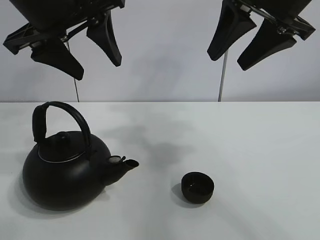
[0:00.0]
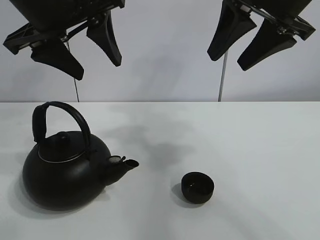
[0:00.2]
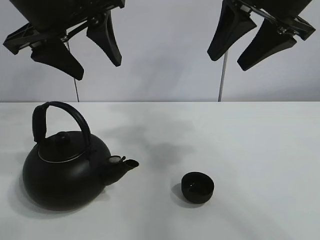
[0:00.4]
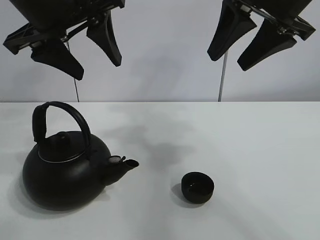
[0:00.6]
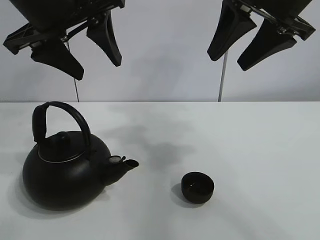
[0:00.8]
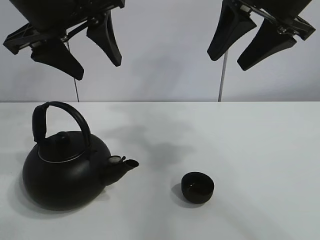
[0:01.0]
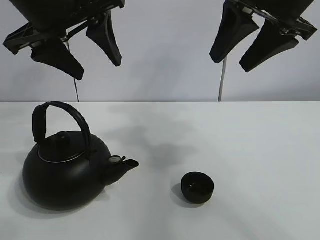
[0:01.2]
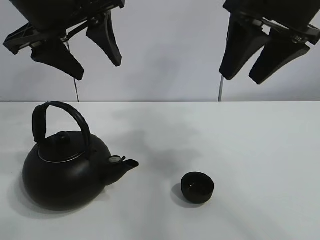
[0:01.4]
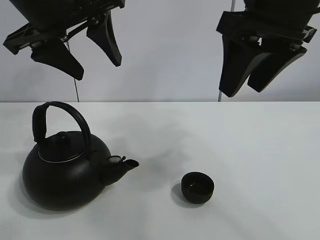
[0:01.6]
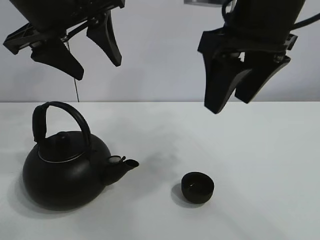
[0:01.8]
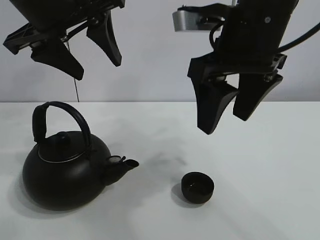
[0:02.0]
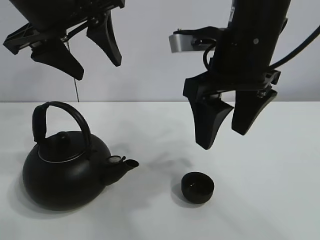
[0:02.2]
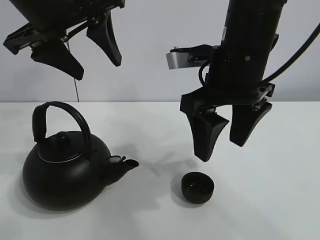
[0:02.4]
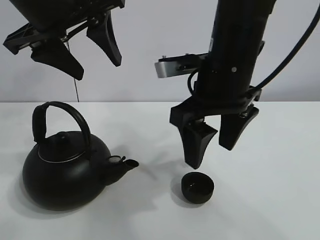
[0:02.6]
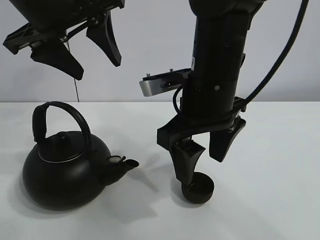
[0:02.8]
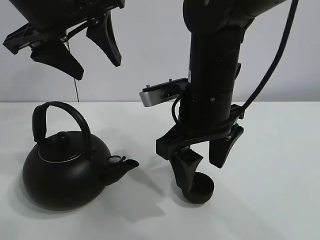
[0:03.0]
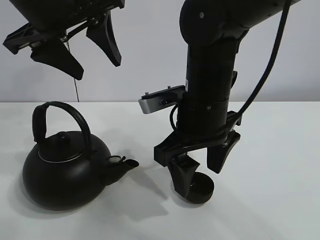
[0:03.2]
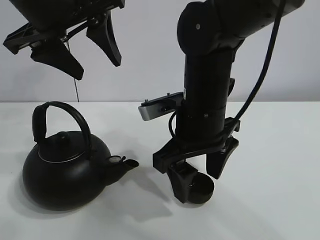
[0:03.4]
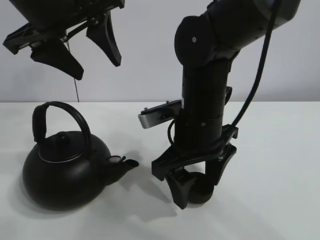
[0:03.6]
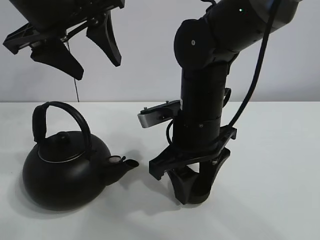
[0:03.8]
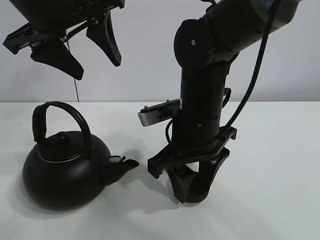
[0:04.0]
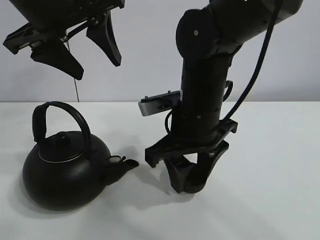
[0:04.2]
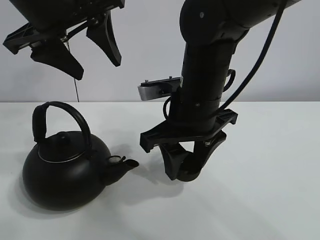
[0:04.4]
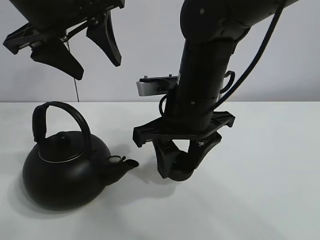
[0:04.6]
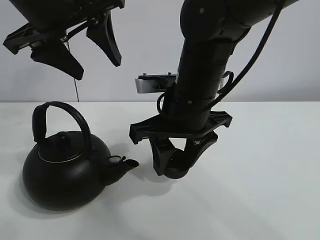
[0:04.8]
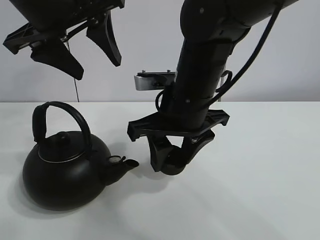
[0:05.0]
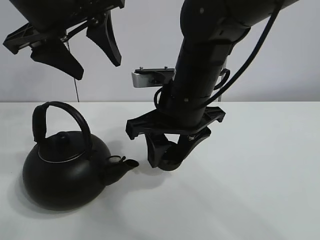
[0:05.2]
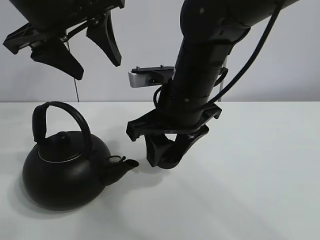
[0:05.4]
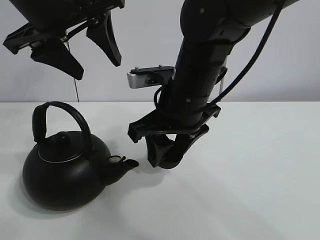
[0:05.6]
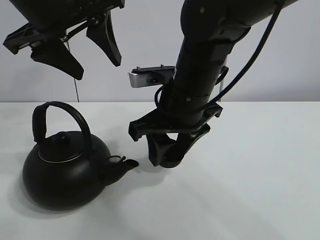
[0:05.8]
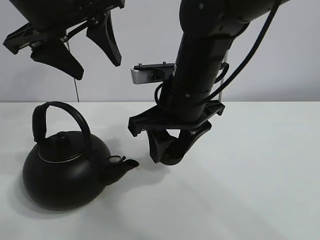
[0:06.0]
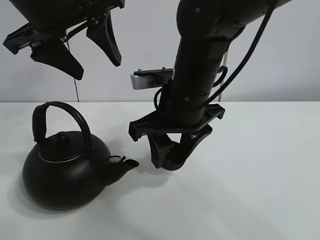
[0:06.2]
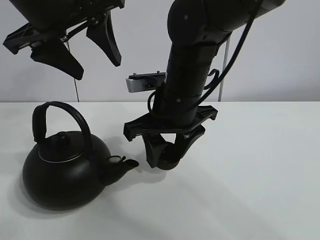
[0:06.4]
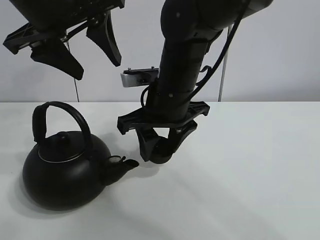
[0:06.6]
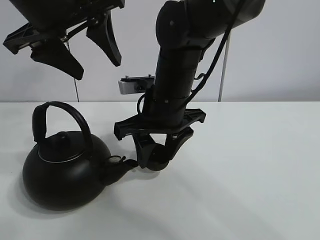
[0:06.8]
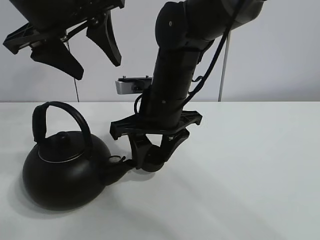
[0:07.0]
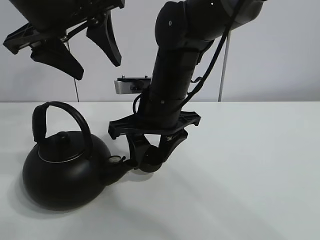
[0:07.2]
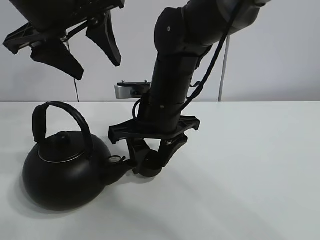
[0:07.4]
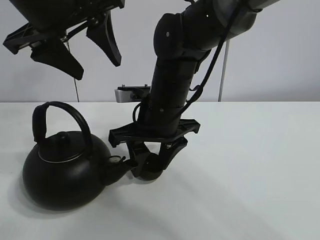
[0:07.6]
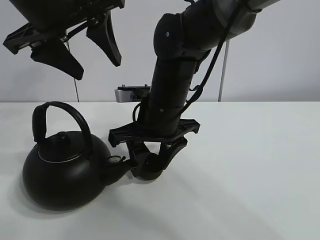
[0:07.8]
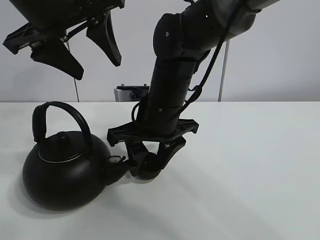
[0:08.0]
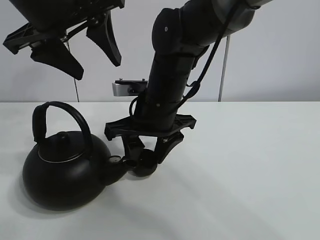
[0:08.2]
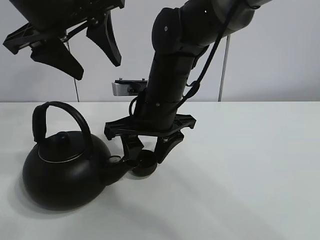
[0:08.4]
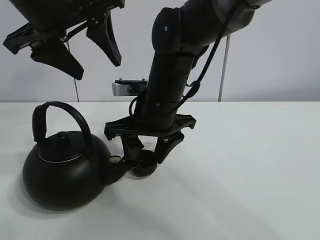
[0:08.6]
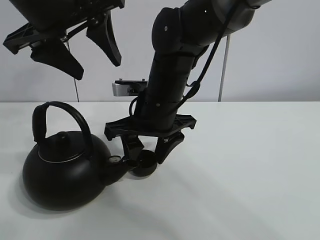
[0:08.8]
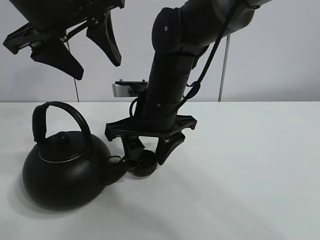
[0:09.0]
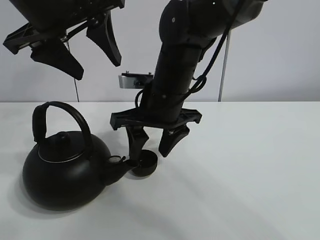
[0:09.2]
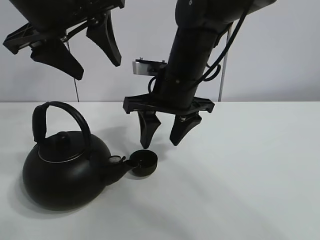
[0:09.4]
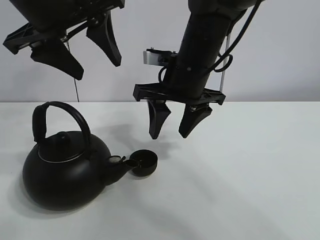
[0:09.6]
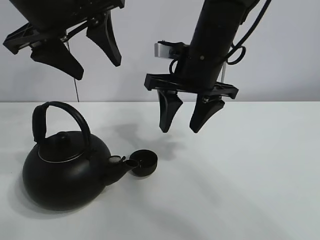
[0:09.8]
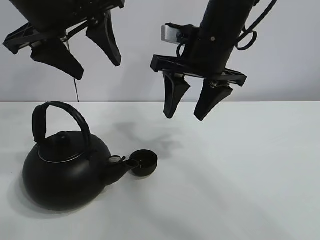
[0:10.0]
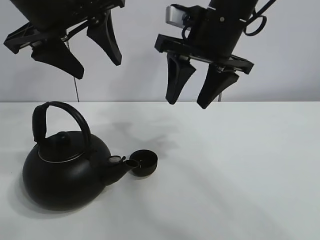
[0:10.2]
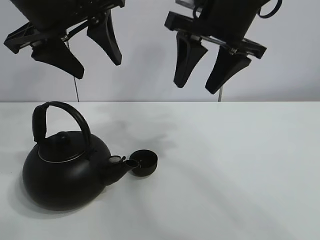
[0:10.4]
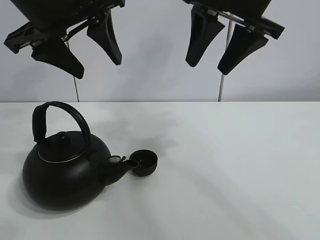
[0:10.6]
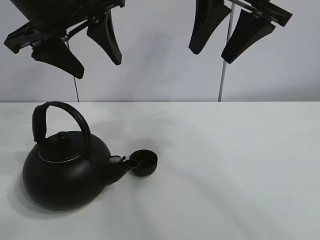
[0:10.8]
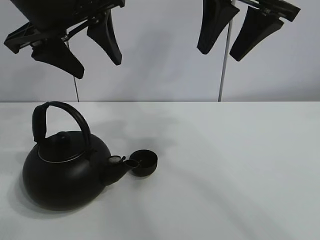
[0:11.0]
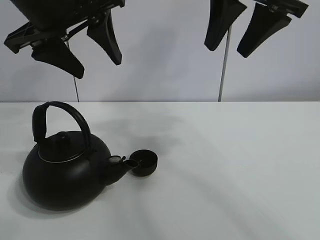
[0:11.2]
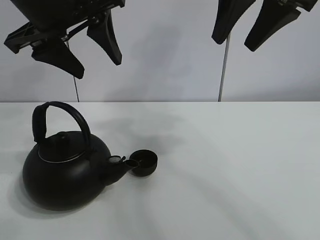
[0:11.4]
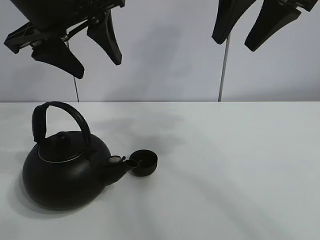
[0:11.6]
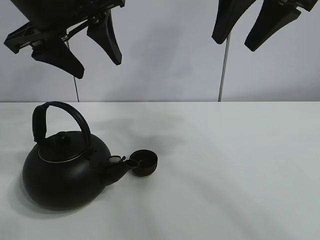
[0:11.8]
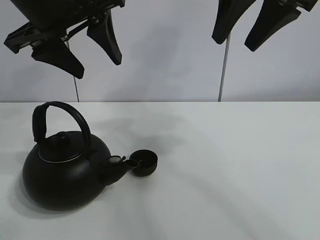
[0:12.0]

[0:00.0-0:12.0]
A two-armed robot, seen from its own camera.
Task of the whole recording: pour tea into the teacup.
Step, 0:00.0 to 0:04.0: Pick up the teacup with the right gripper.
Step, 0:04.2 to 0:09.2: Place the teacup in the center of view with the right gripper.
0:01.6 to 0:03.0: The right gripper shifts roughly 15 cm downward and to the left, and opens up.
0:03.0 to 0:04.4: The right gripper closes up.
0:04.4 to 0:06.0: The grippers stay close to where they were, moving slightly.
0:06.0 to 0:07.6: The right gripper ends up roughly 5 cm from where it was.
0:07.6 to 0:09.0: The two grippers keep their place.
0:09.0 to 0:10.4: The right gripper shifts roughly 15 cm upward and to the right.
0:10.4 to 0:12.0: The right gripper goes about 5 cm upward.

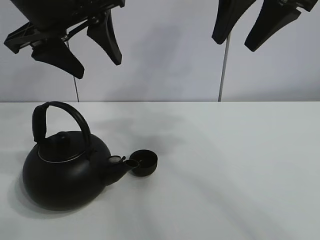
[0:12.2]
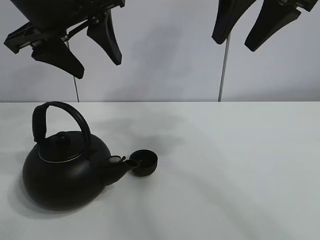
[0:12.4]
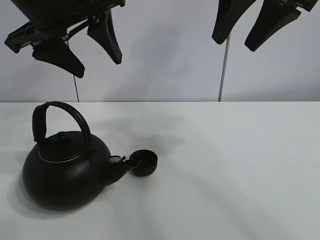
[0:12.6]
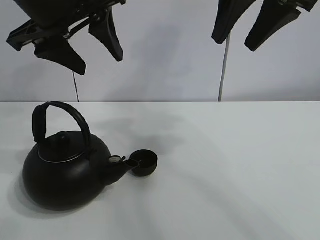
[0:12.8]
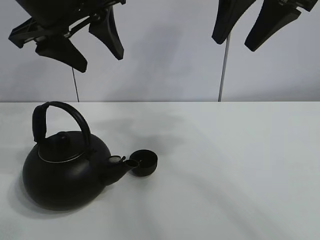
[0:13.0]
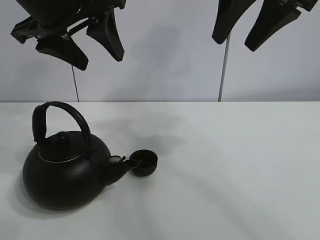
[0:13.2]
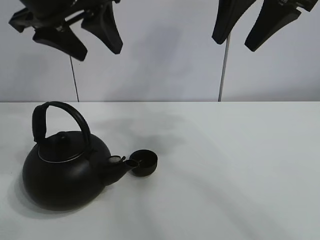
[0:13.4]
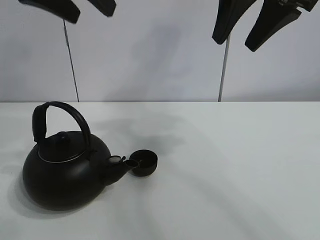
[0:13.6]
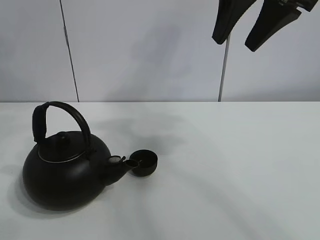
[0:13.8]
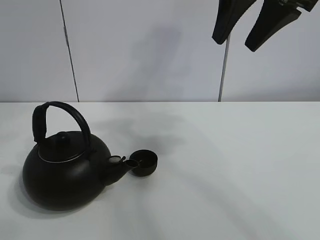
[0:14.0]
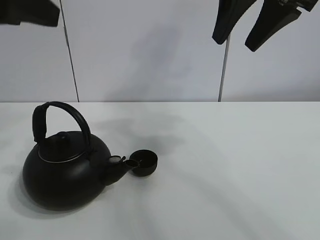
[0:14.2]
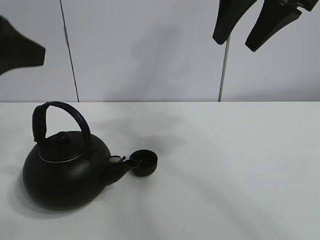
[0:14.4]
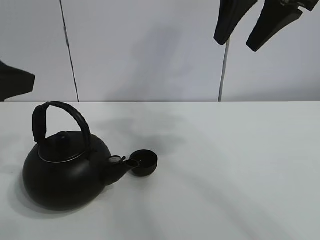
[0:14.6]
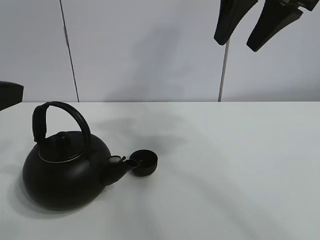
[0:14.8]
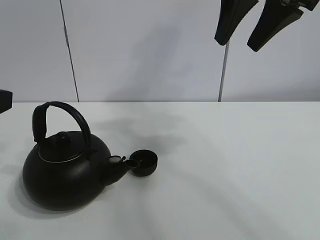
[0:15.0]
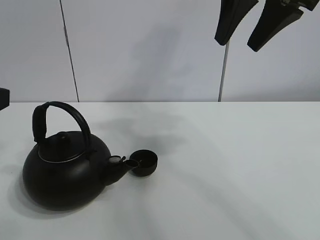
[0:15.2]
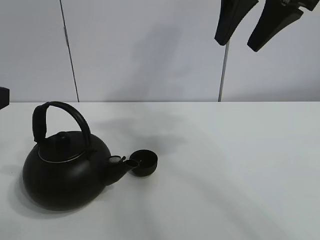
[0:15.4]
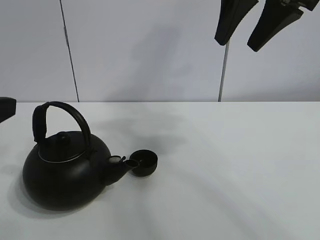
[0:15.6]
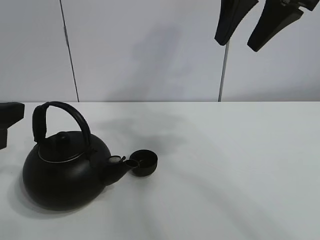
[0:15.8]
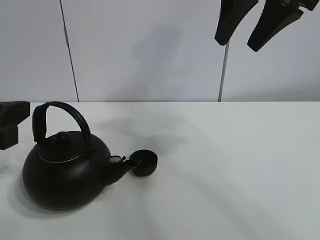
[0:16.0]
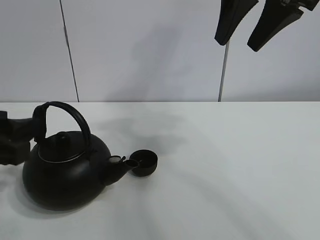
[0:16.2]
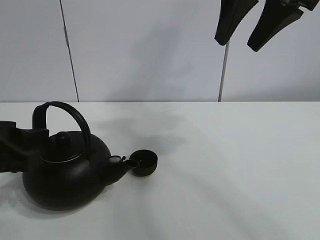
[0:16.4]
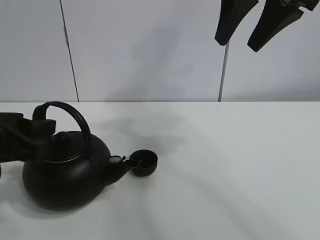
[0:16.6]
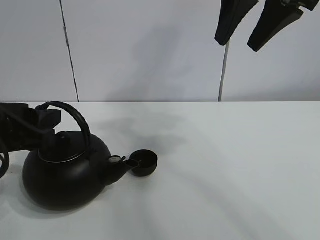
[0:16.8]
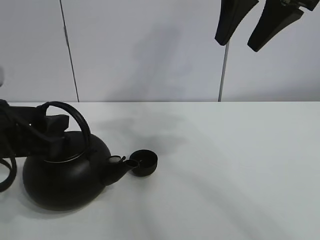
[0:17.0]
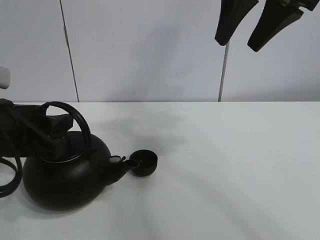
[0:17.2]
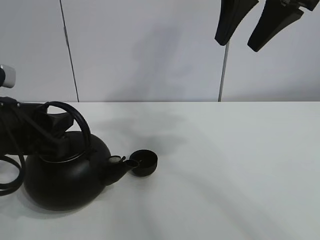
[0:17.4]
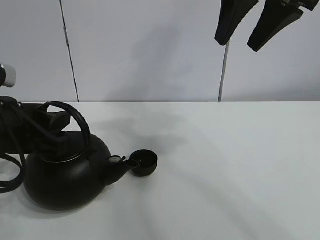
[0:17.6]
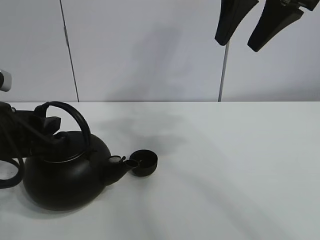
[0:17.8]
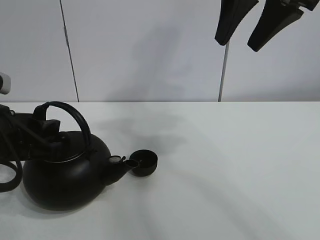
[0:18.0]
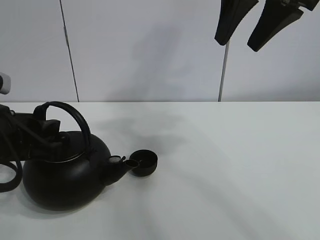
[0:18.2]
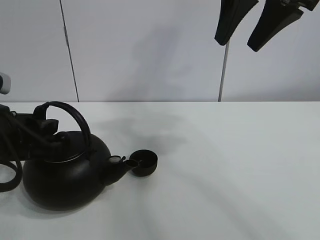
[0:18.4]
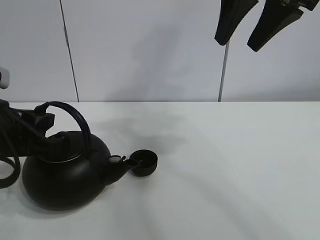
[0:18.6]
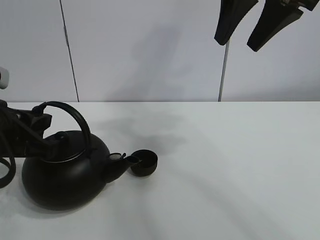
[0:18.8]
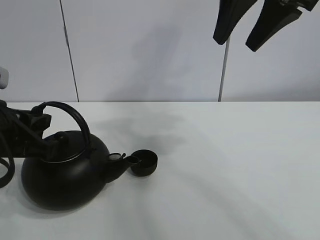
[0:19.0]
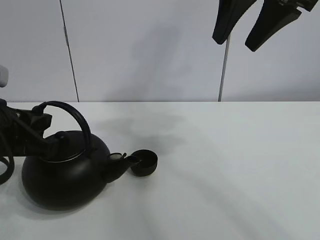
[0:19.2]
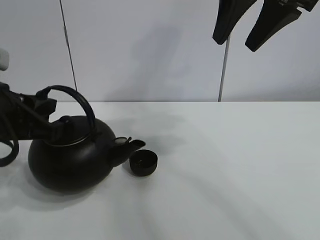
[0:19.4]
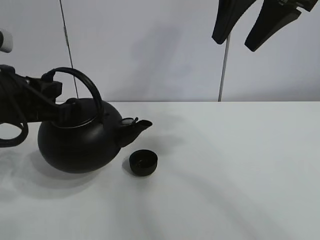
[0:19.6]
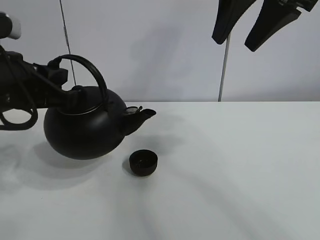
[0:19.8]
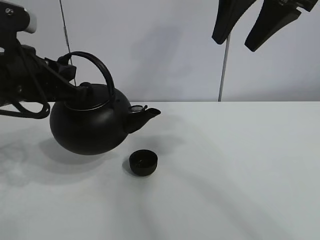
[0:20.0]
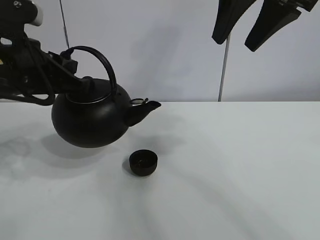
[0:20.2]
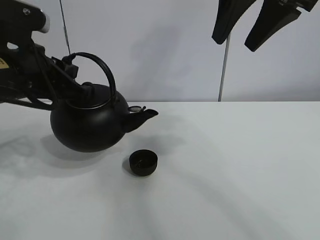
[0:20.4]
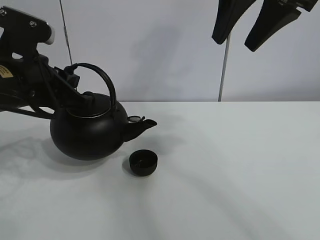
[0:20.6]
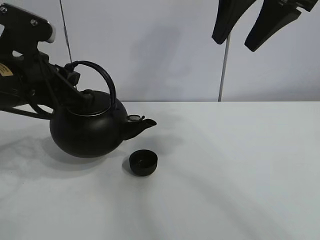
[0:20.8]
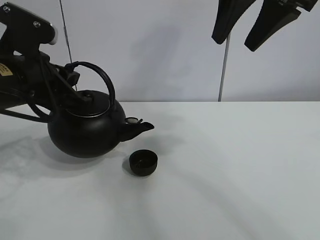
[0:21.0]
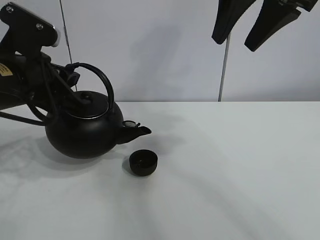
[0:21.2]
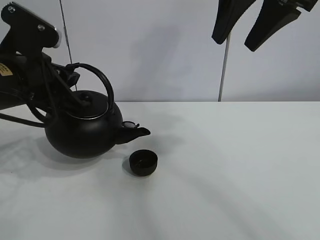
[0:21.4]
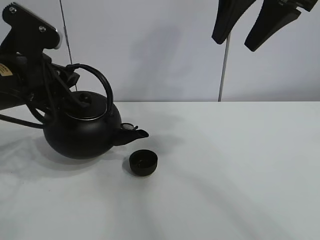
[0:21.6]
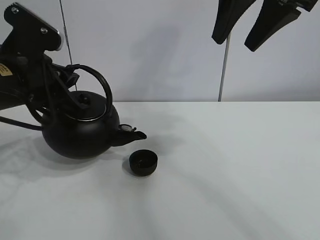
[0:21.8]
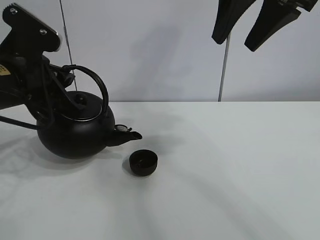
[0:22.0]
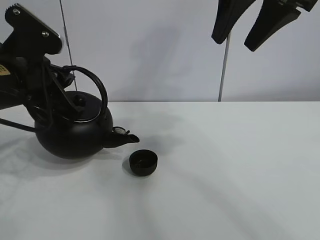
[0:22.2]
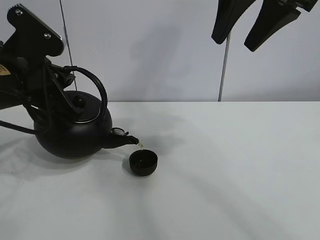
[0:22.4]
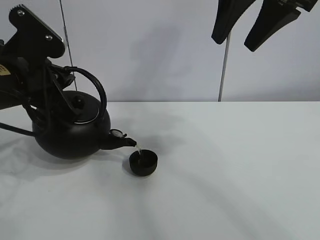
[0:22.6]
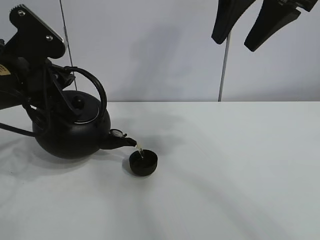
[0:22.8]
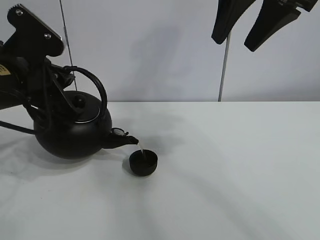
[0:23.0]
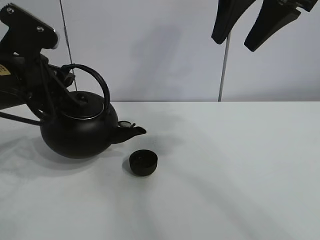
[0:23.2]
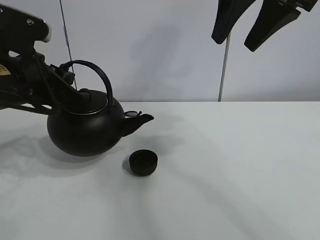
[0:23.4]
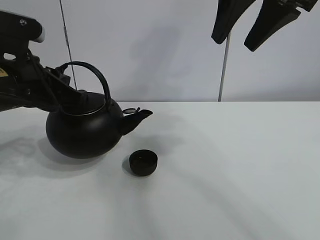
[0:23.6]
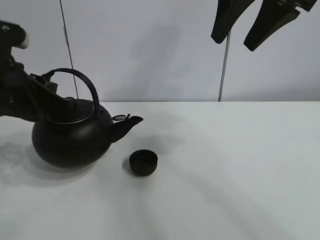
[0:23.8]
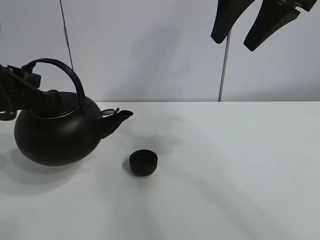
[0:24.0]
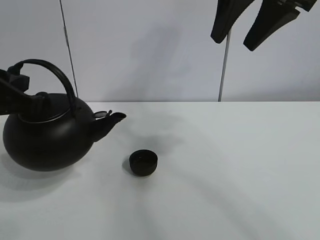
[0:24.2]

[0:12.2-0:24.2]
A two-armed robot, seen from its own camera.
Task of the whole recording: pour tea into the teacup.
Step, 0:12.2 to 0:19.0: Pick up the teapot with the left gripper.
Step, 0:19.2 to 0:23.2: Pour tea into the teacup with the left gripper.
0:12.2 to 0:13.8: The left gripper travels upward by roughly 10 cm.
0:15.2 to 0:16.6: The left gripper is displaced downward by approximately 5 cm.
0:16.6 to 0:18.2: There are only small adjustments of the grippers.
0:18.2 to 0:19.8: The left gripper moves upward, about 5 cm, and closes.
0:19.8 to 0:21.2: The grippers make only small movements.
0:21.2 to 0:22.6: The grippers make only small movements.
0:22.6 to 0:24.2: The left gripper travels backward by some 5 cm.
